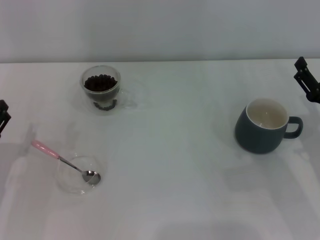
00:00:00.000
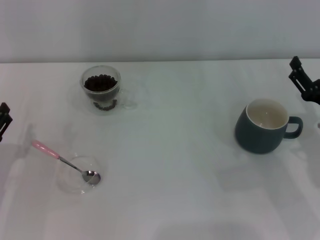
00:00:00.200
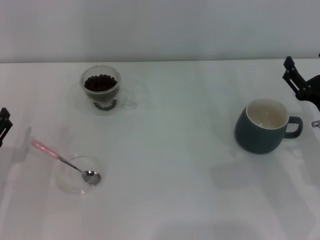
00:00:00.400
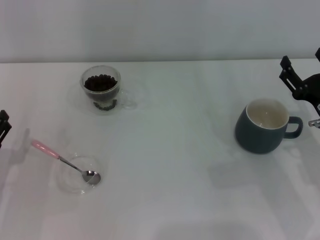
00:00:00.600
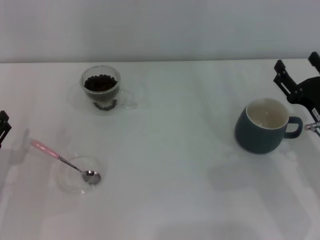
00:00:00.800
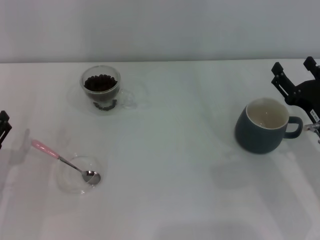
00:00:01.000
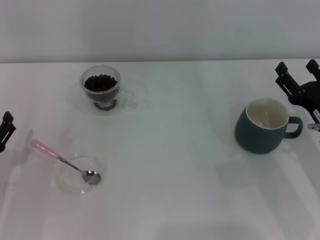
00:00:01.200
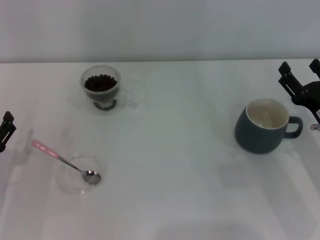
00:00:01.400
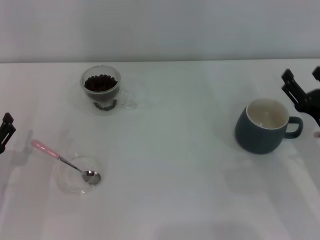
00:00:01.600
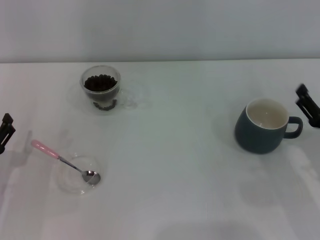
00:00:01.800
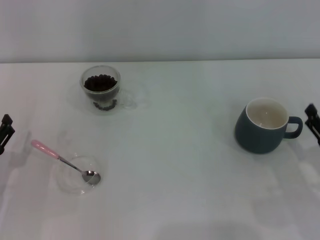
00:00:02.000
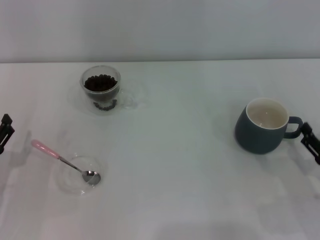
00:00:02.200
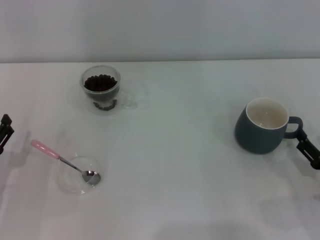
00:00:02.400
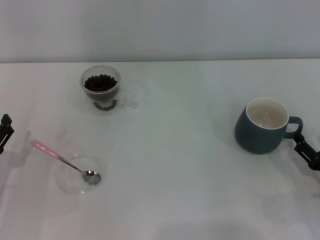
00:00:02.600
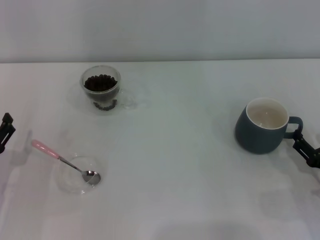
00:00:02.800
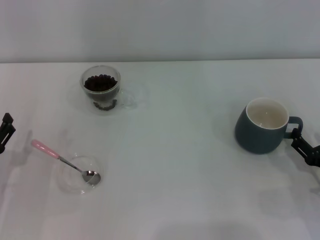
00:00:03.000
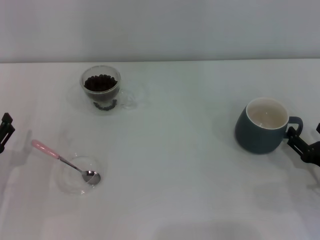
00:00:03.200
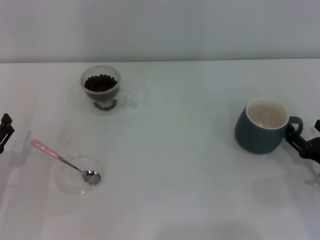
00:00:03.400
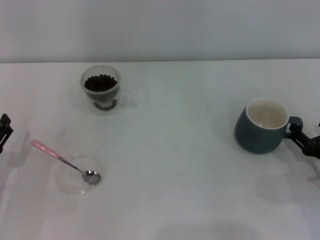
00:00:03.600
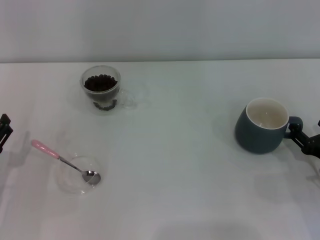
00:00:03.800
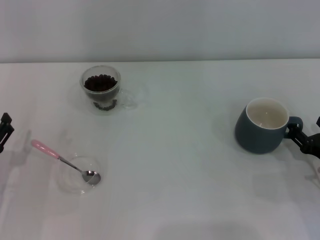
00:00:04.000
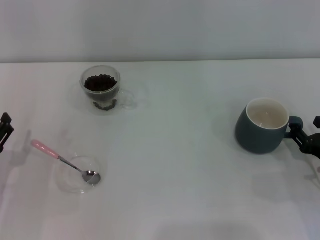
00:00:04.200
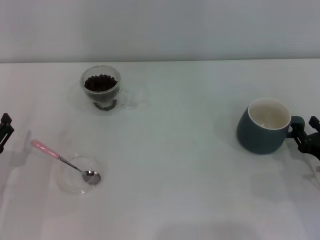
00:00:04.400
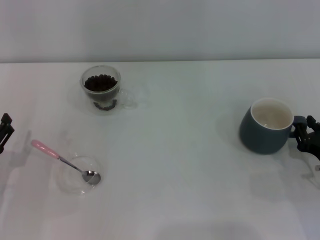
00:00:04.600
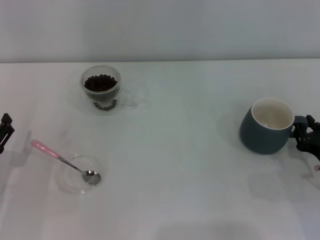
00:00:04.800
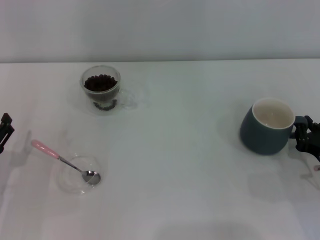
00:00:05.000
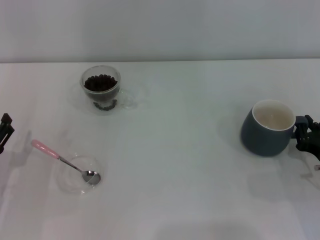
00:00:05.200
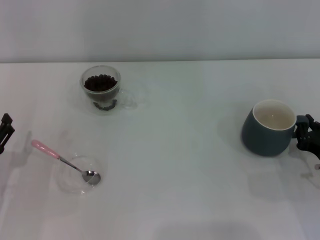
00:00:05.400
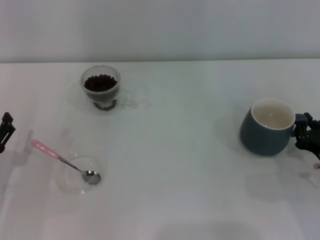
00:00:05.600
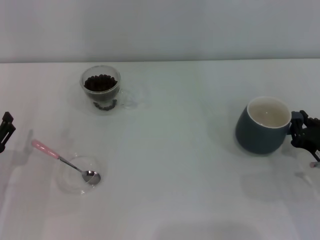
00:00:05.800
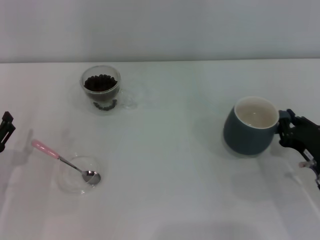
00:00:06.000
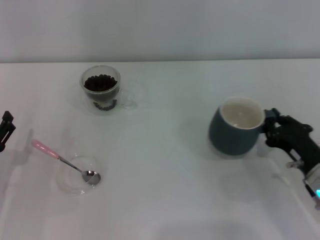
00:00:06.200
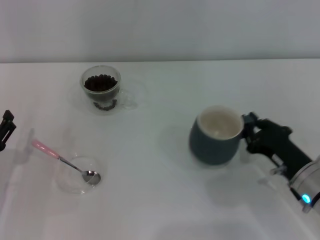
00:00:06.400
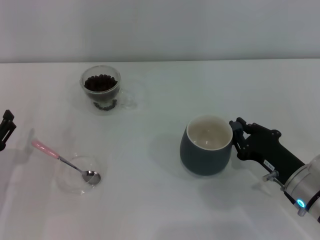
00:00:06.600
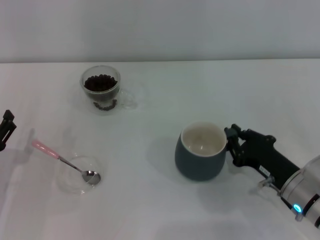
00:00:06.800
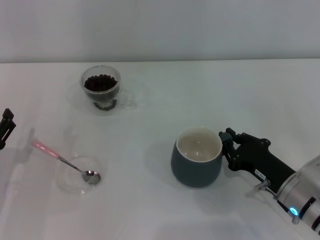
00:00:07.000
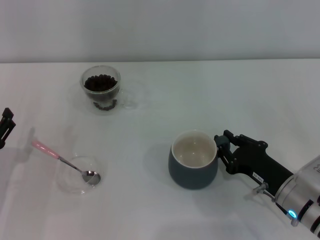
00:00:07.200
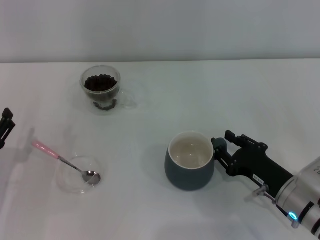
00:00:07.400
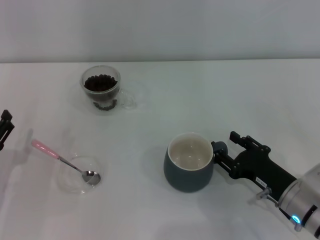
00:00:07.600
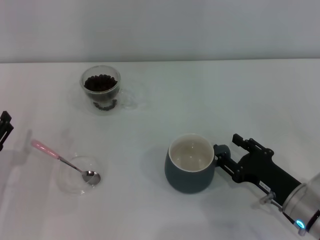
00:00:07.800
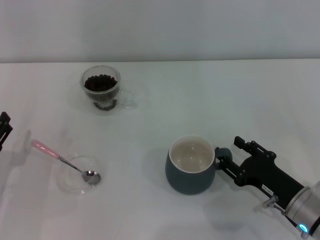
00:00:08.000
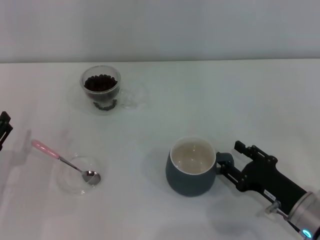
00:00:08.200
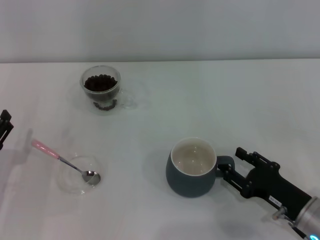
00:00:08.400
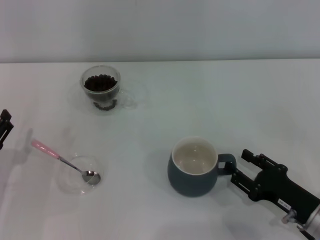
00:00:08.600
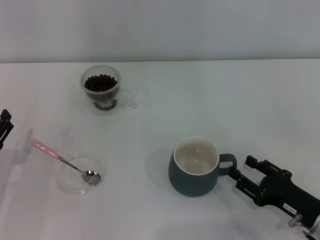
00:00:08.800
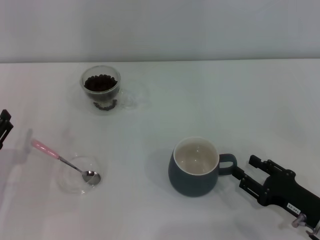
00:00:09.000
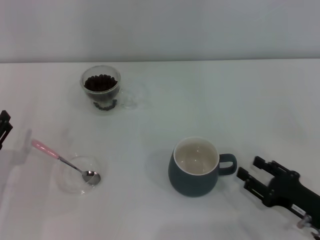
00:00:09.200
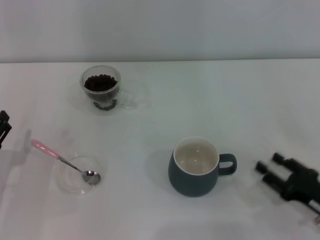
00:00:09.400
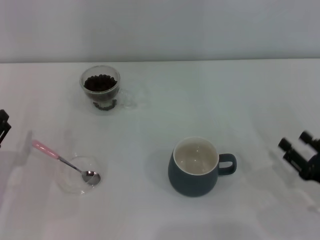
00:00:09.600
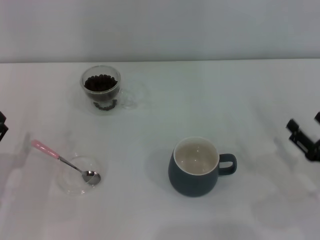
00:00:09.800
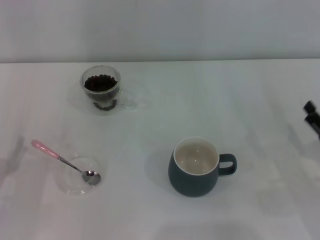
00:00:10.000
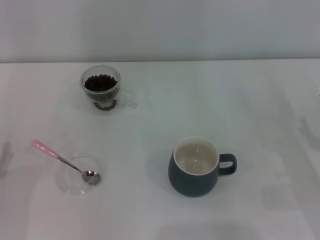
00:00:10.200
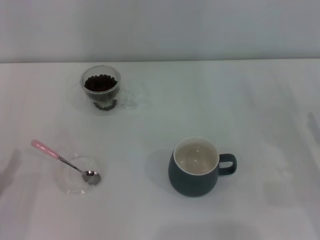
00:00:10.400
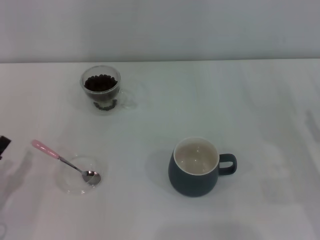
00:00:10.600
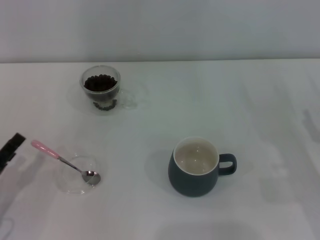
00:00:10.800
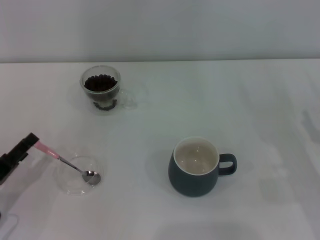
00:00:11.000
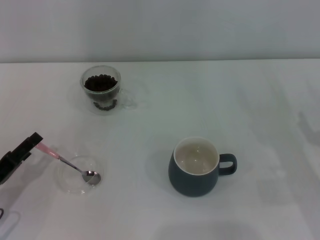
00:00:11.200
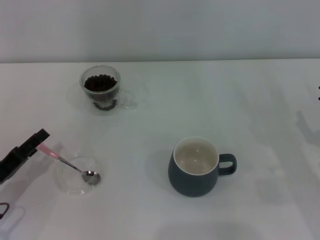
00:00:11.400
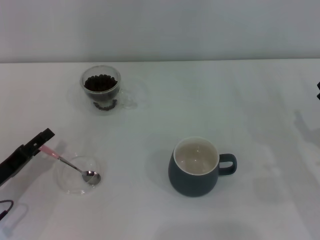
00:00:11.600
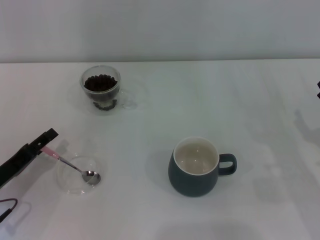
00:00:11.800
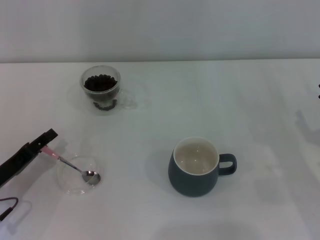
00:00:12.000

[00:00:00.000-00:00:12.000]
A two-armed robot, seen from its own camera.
Task of the whole recording: Use a pink spoon to take out the coffee beans from the glass and pour them into the gray cup.
00:00:00.000 to 00:00:01.600: The grippers stay close to where they were, moving slightly.
00:00:01.600 to 00:00:03.000: The right gripper heads backward, covering approximately 5 cm.
00:00:03.000 to 00:00:04.400: There are only small adjustments of the grippers.
00:00:04.400 to 00:00:06.000: The right gripper closes.
00:00:06.000 to 00:00:07.600: The right gripper heads to the left, covering some 5 cm, and opens.
00:00:07.600 to 00:00:09.000: The right gripper moves roughly 5 cm.
00:00:09.000 to 00:00:10.400: The right gripper goes approximately 5 cm to the right.
00:00:10.400 to 00:00:12.000: The left gripper goes roughly 5 cm forward.

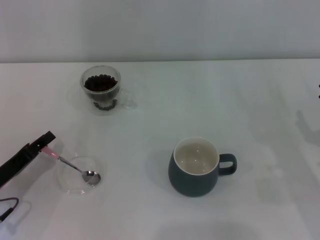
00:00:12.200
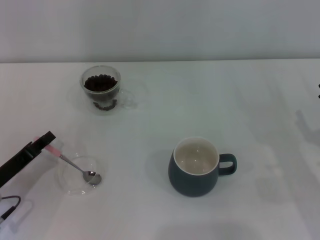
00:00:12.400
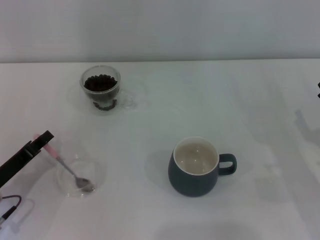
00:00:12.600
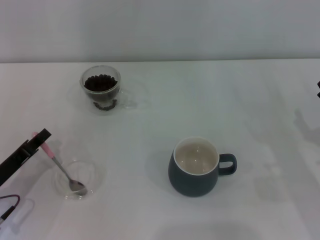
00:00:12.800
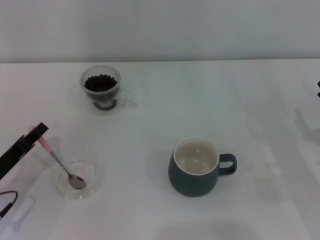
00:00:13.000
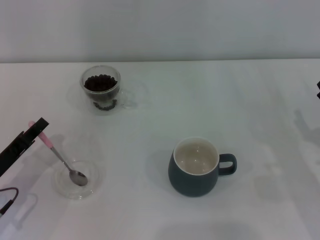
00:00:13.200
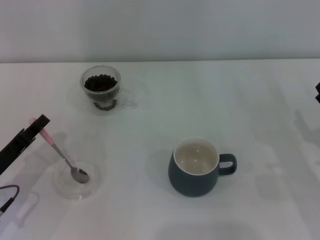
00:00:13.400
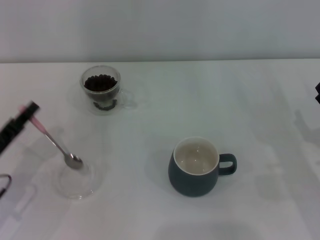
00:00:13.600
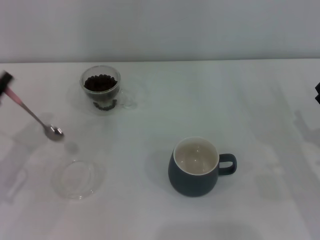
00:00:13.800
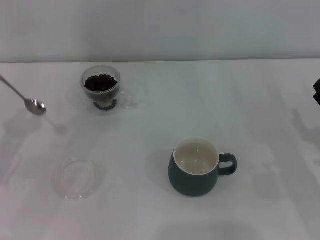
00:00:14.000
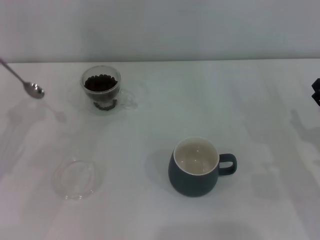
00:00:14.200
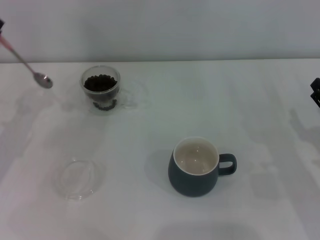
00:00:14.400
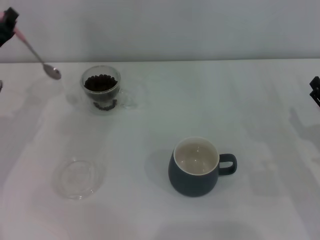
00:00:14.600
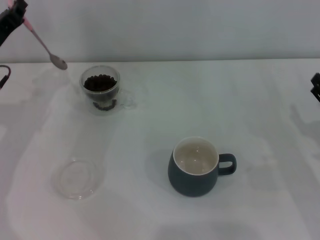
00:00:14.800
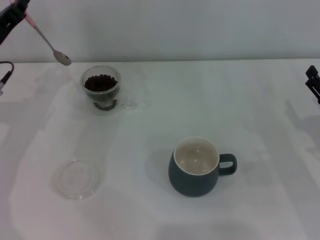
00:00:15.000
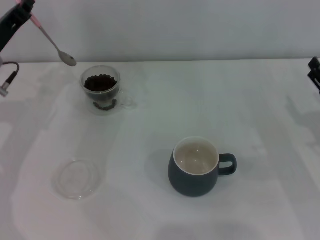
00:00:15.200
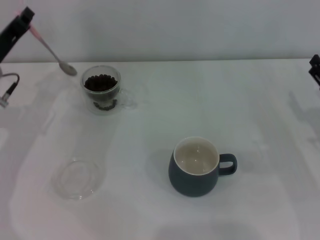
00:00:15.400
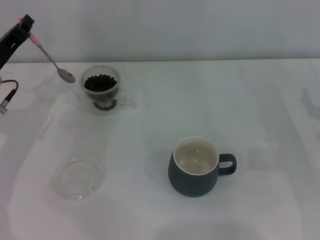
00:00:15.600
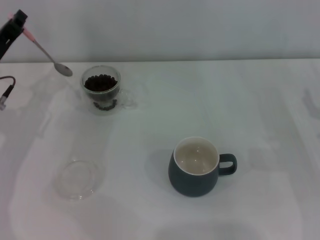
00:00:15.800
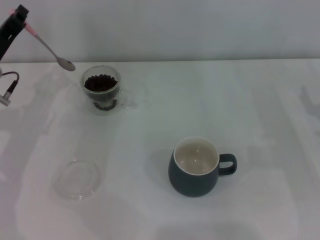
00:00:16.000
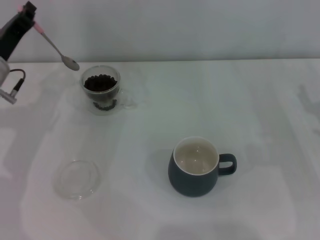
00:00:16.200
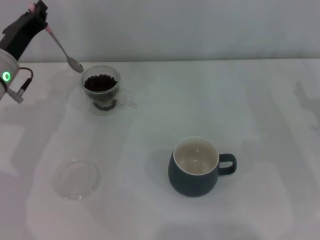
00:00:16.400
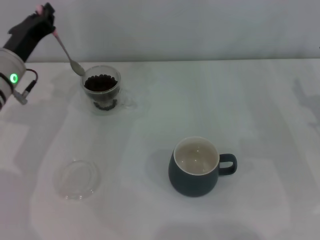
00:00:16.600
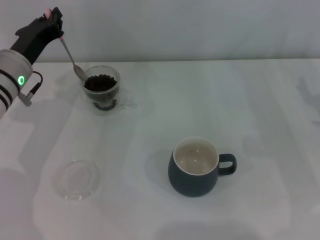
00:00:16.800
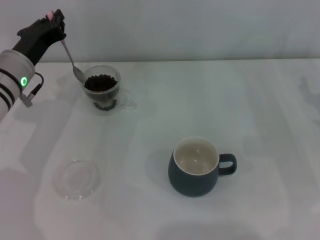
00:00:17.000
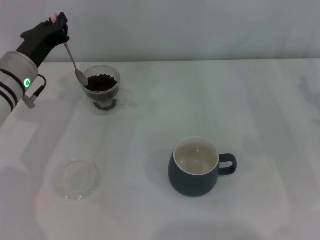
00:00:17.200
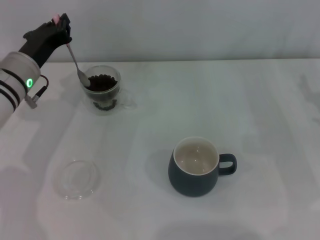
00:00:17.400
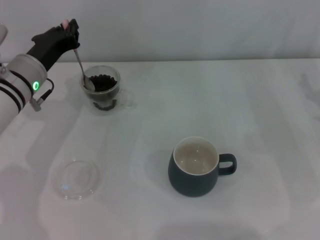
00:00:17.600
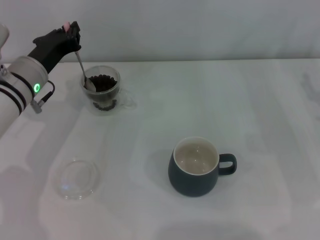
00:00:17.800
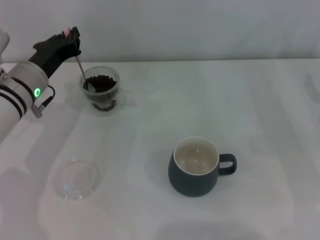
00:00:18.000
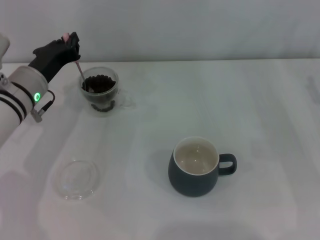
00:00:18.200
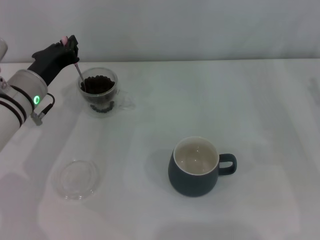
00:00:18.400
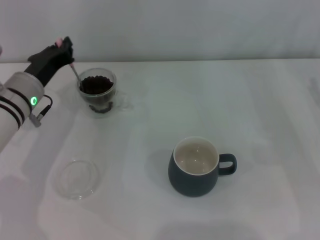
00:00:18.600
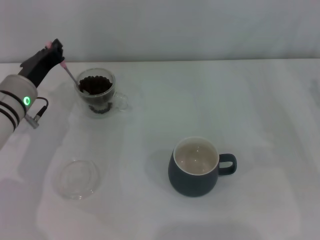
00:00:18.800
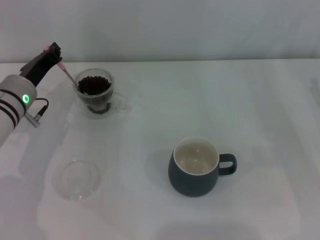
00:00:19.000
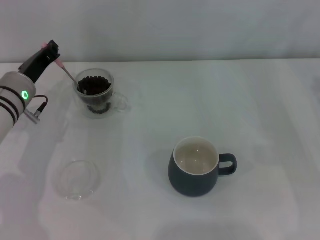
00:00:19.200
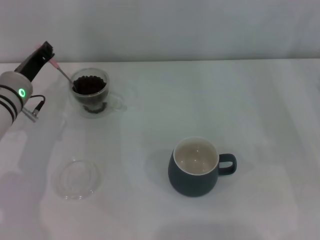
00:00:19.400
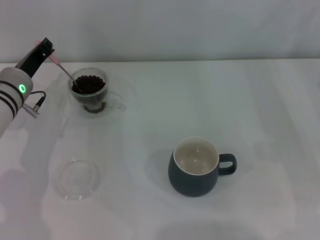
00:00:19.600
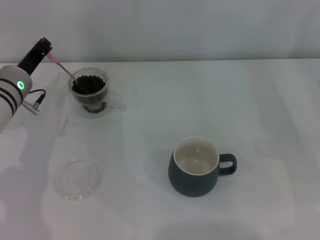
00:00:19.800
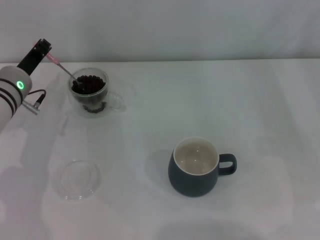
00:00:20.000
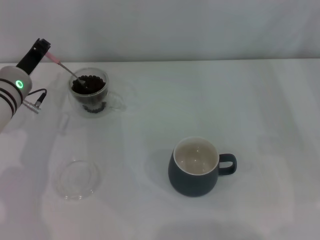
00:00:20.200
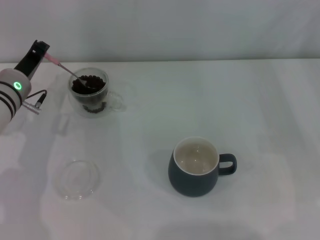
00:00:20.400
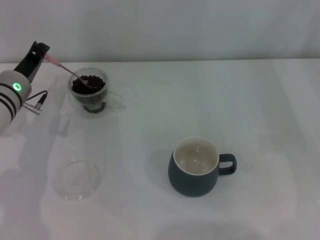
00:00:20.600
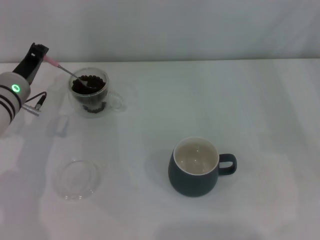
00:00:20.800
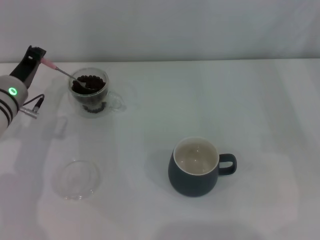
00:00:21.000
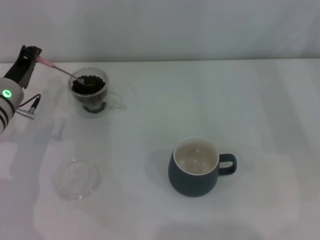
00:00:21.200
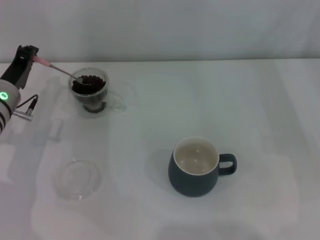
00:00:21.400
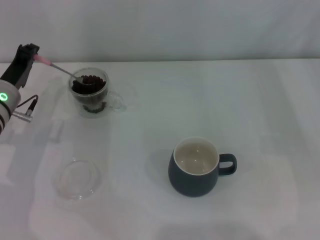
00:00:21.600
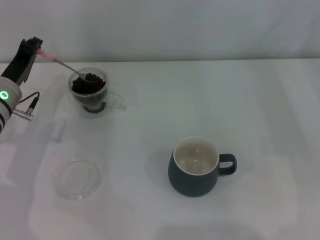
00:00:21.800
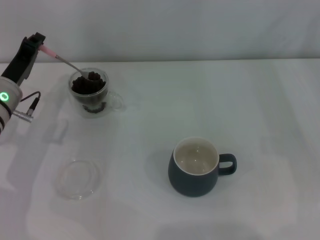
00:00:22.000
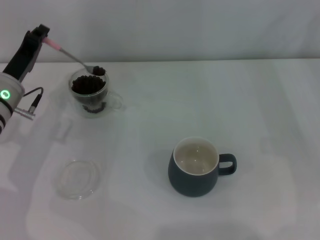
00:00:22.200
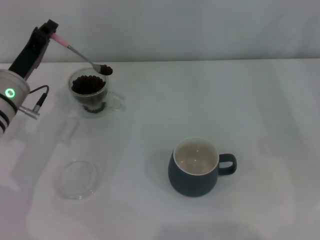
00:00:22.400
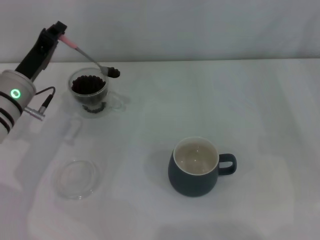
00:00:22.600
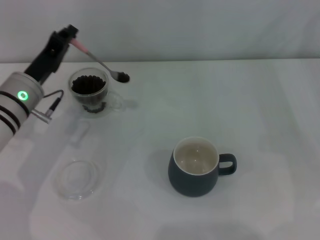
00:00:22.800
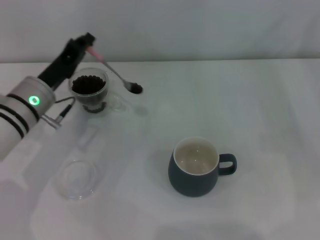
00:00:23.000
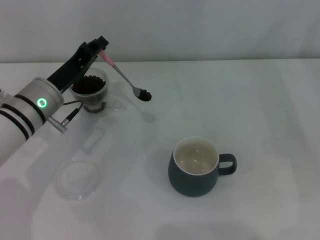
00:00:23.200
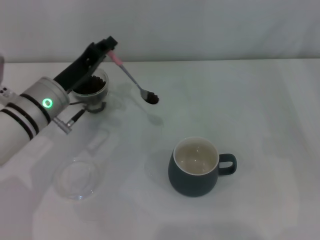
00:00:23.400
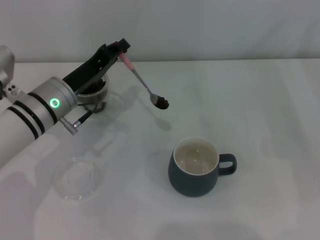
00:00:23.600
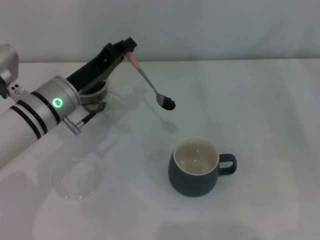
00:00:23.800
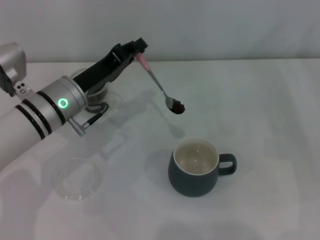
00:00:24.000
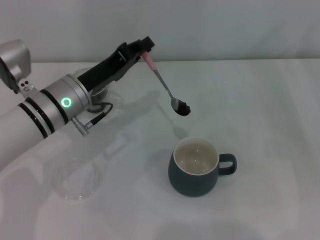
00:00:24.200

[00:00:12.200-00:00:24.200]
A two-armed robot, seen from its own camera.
Task of the whole recording: Use a pink spoon to take out the coffee beans from the glass and pour them into the gray cup.
00:00:12.200 to 00:00:13.800: The left gripper travels upward by approximately 5 cm, and closes.
00:00:13.800 to 00:00:15.200: The left gripper goes some 15 cm forward and upward.
00:00:15.200 to 00:00:16.600: The grippers make only small movements.
00:00:16.600 to 00:00:18.200: There are only small adjustments of the grippers.
00:00:22.600 to 00:00:24.200: The left gripper travels to the right by approximately 5 cm.
